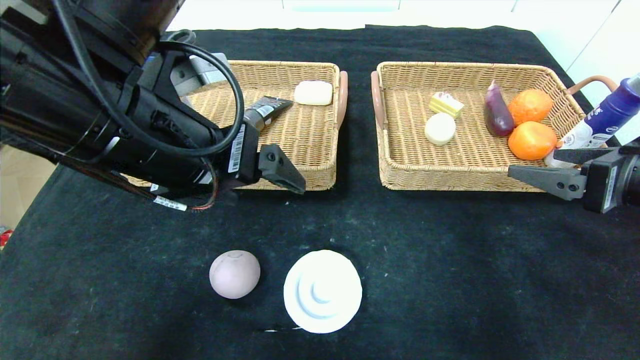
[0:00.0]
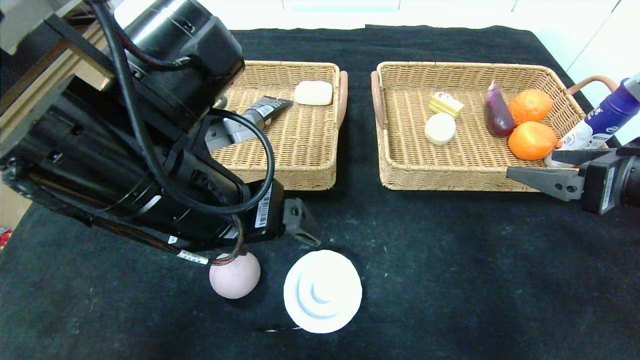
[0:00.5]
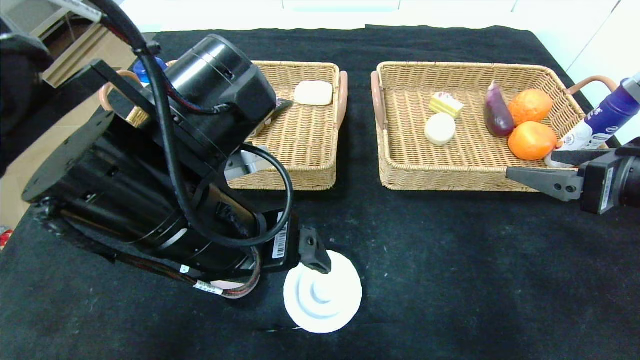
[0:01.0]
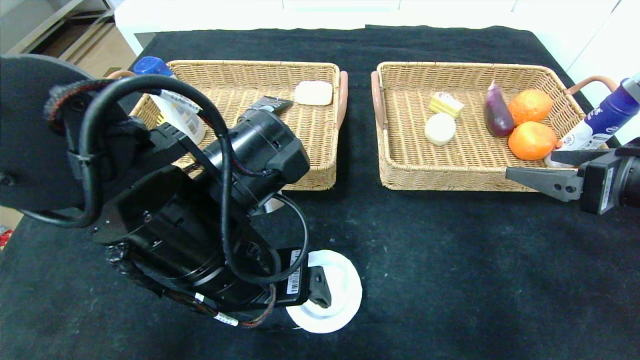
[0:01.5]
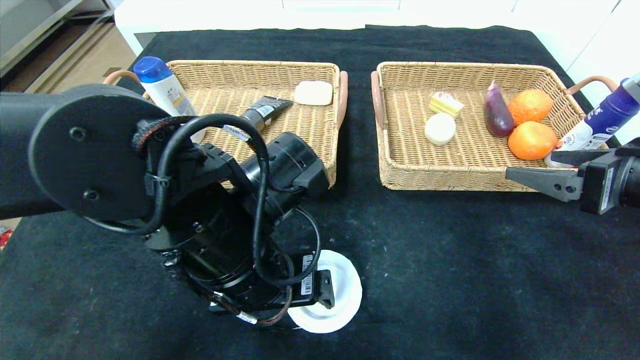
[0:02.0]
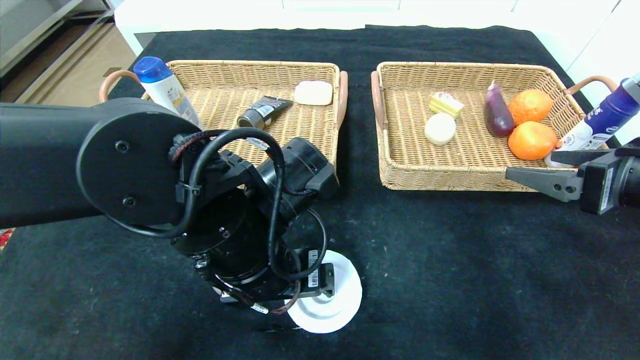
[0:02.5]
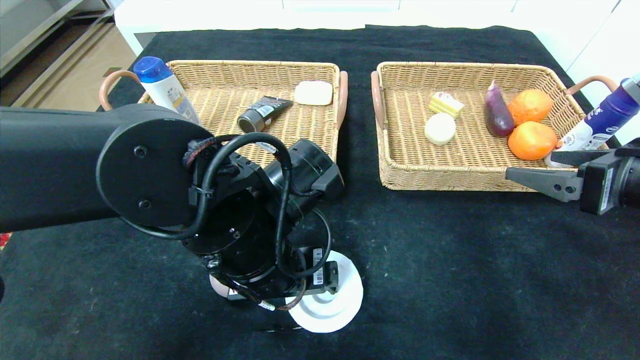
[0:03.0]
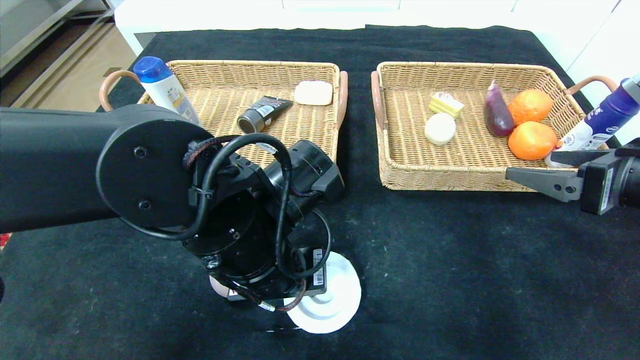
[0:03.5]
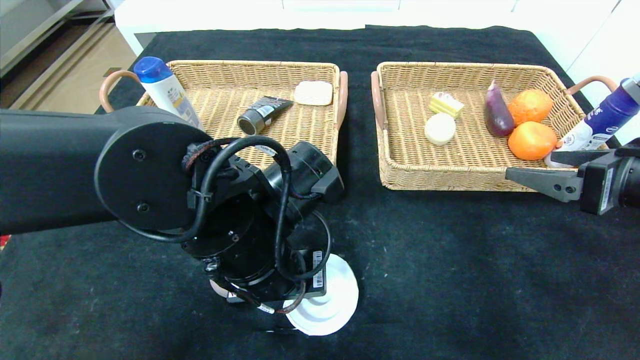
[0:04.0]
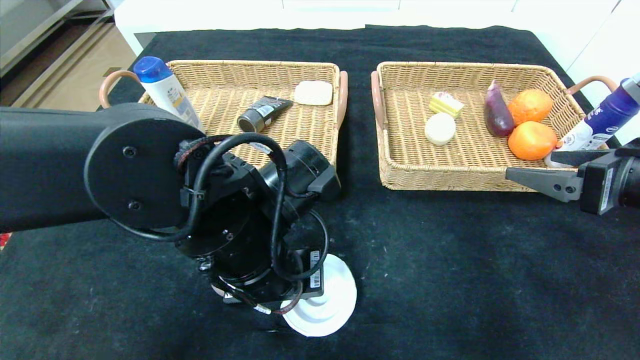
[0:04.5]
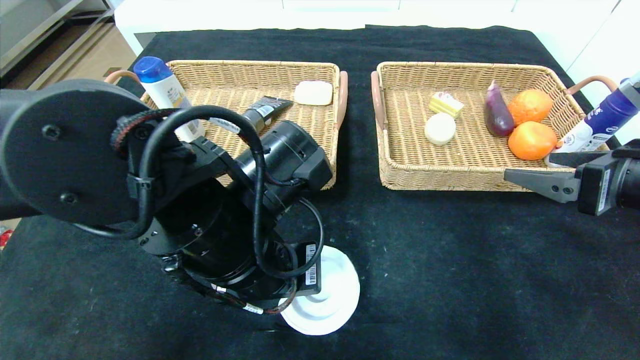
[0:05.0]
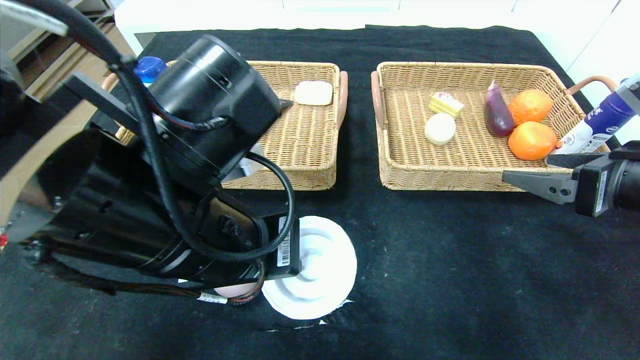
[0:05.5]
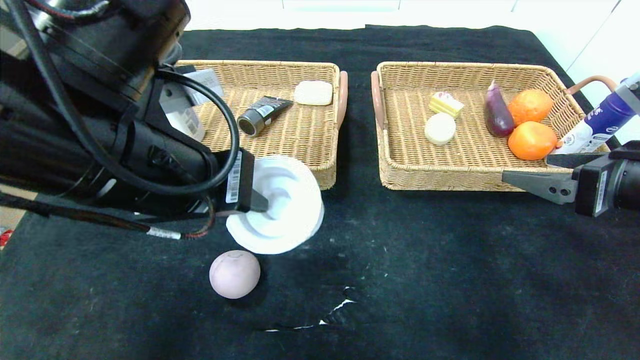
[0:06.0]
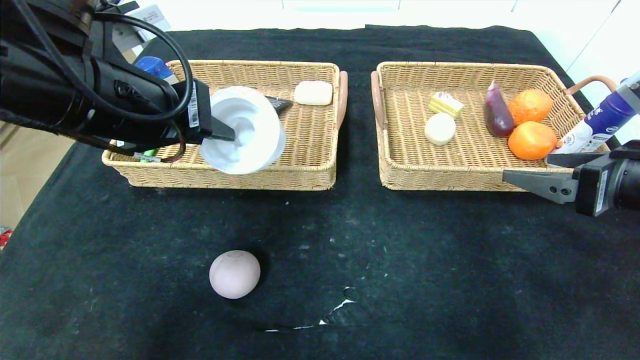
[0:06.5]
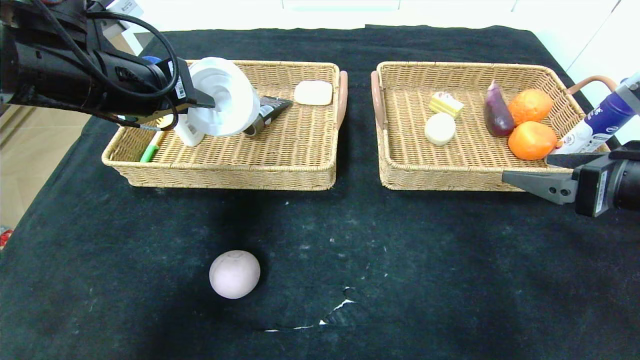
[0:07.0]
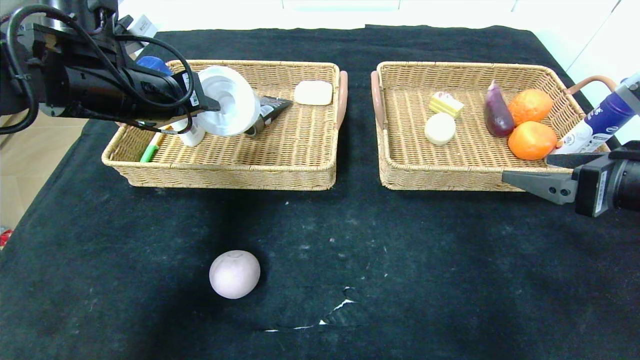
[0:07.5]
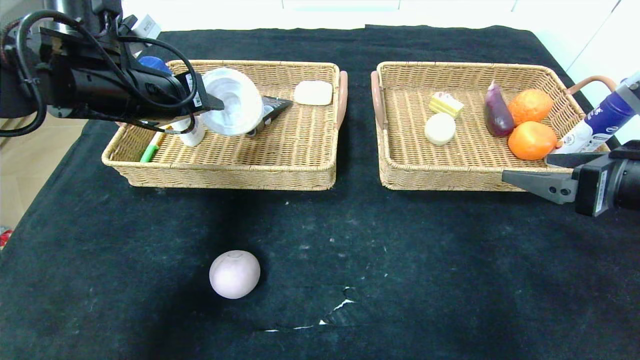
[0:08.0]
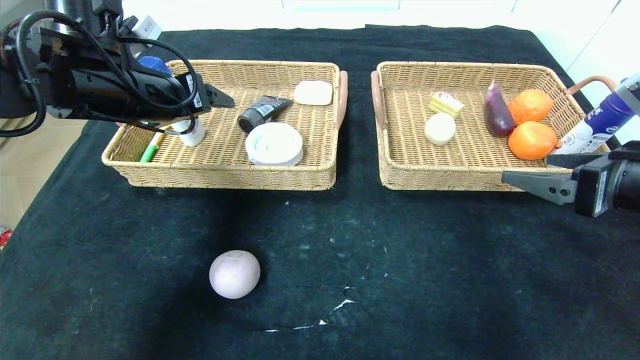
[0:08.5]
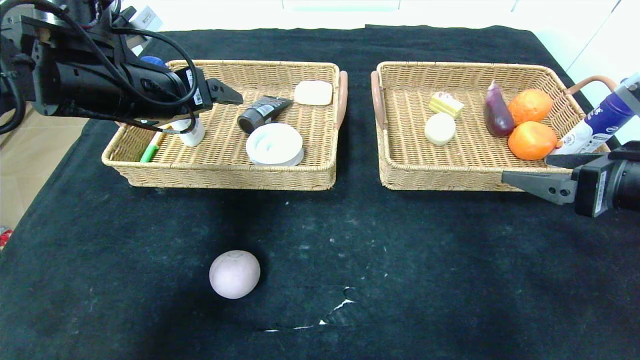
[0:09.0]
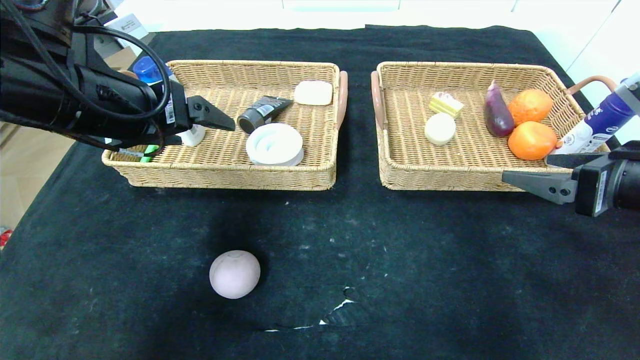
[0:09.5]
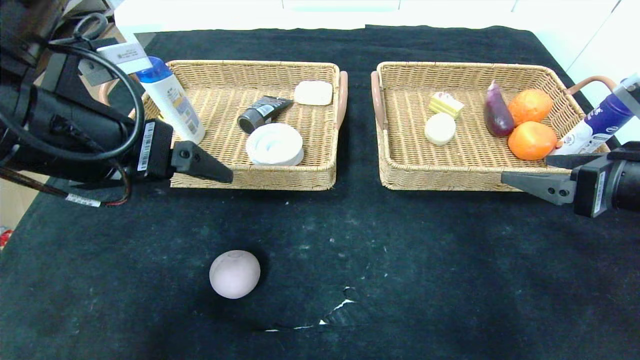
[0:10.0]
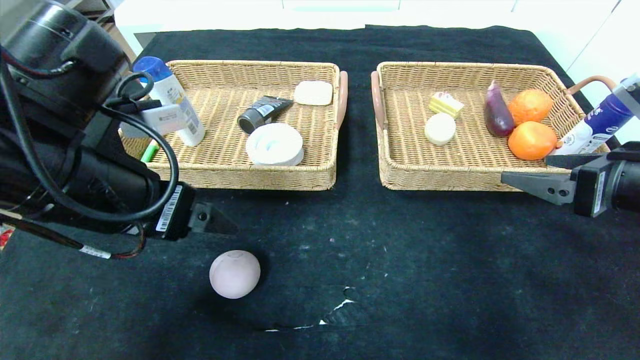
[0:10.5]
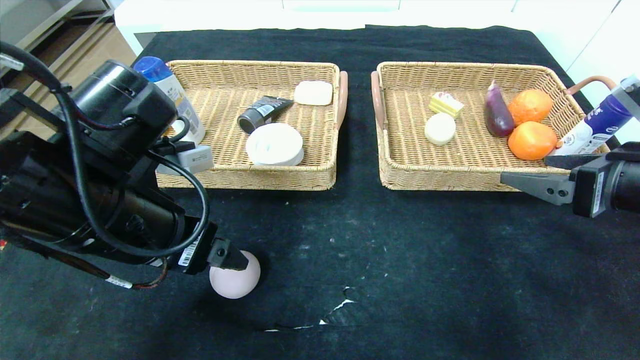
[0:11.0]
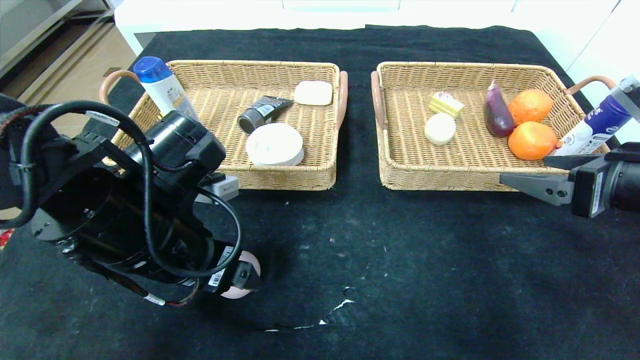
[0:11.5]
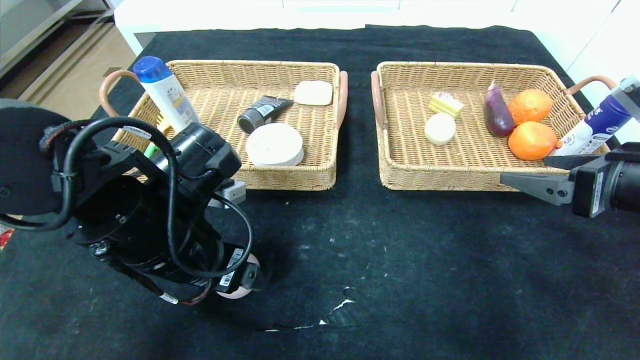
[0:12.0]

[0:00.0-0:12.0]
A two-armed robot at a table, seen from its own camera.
Step, 0:00.0 to 0:08.0: Grasp the tape and put it in the left basket.
0:00.0 to 0:02.0: The left gripper heads downward and to the right, covering some 10 cm.
0:02.0 to 0:04.0: The left gripper closes.
0:04.0 to 0:06.0: The left gripper is displaced upward and to the left by some 15 cm.
0:06.0 to 0:08.0: The left gripper shifts roughly 20 cm forward and to the left.
0:08.0 to 0:10.0: The left gripper moves backward, some 15 cm, and opens.
0:10.0 to 0:12.0: The left gripper goes roughly 10 cm downward and to the right.

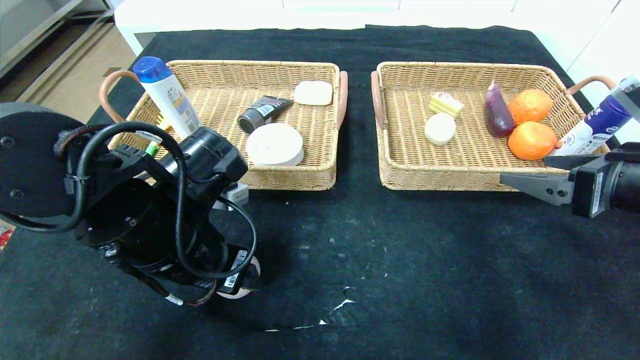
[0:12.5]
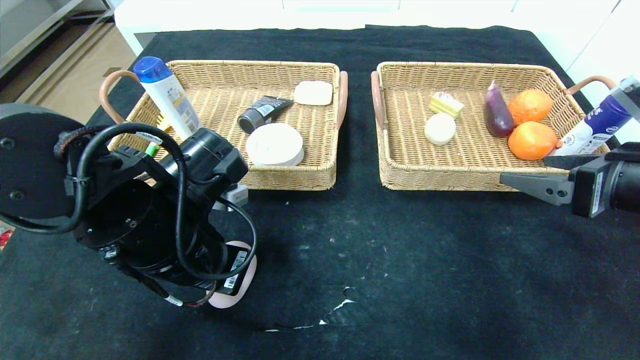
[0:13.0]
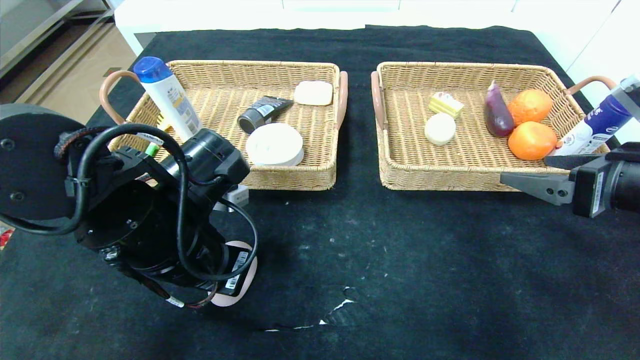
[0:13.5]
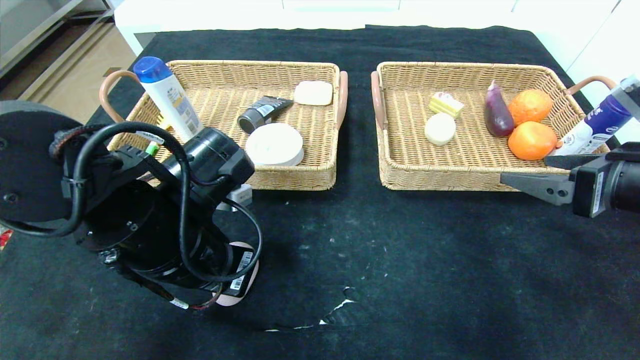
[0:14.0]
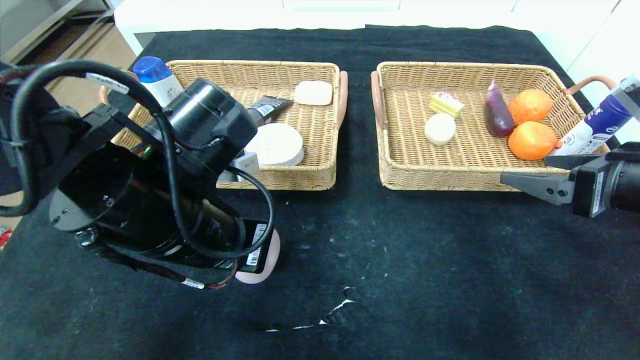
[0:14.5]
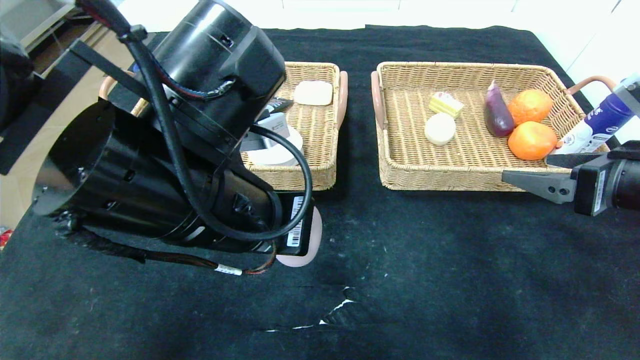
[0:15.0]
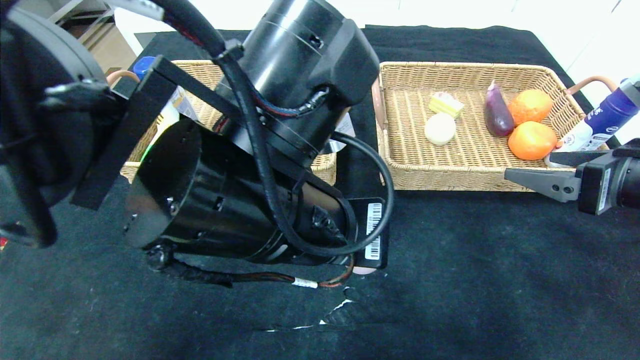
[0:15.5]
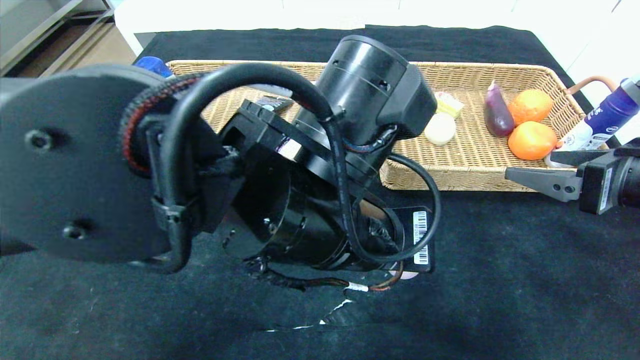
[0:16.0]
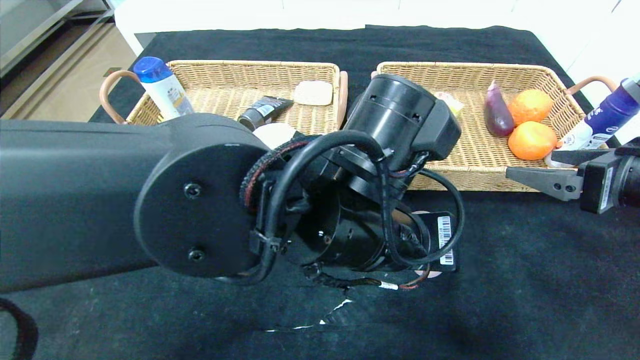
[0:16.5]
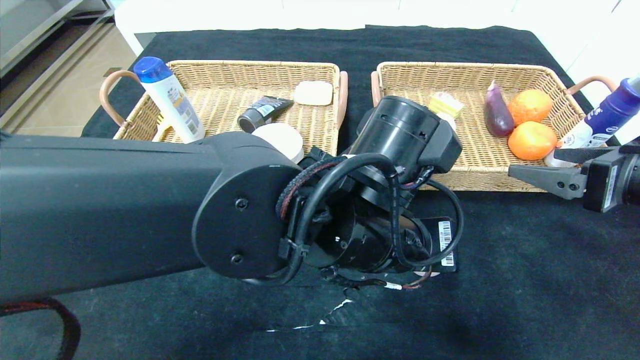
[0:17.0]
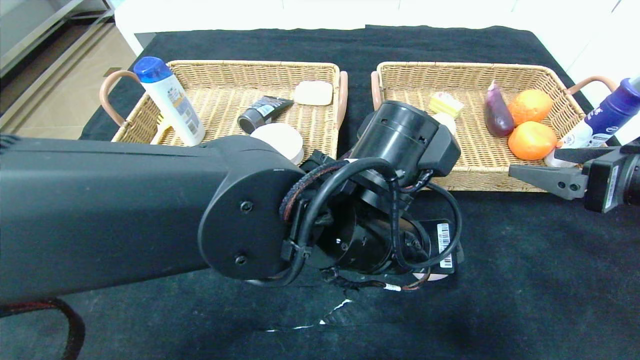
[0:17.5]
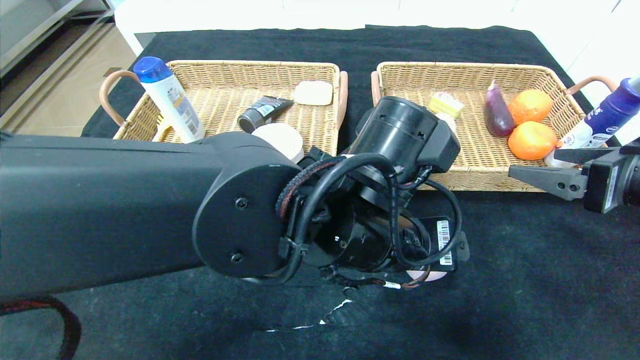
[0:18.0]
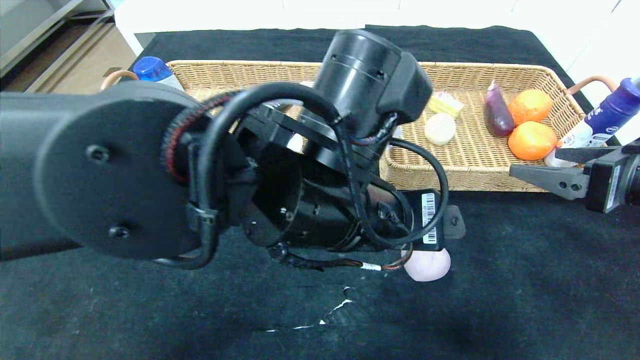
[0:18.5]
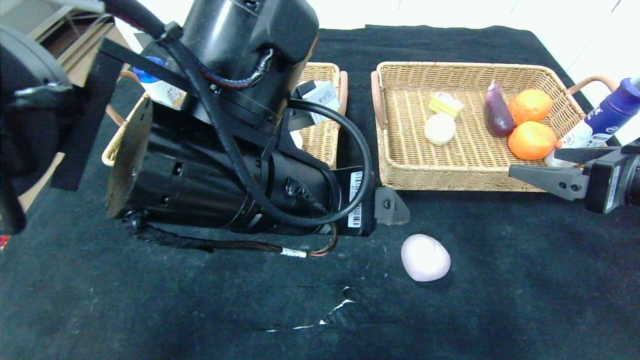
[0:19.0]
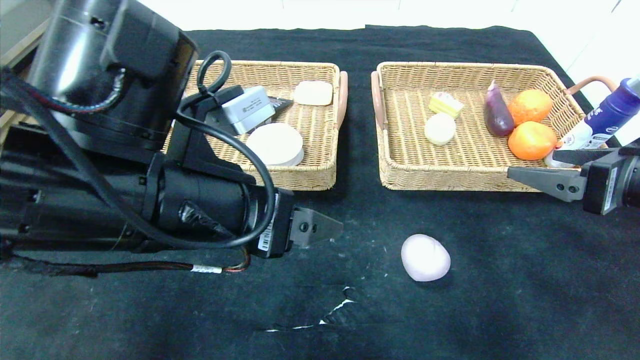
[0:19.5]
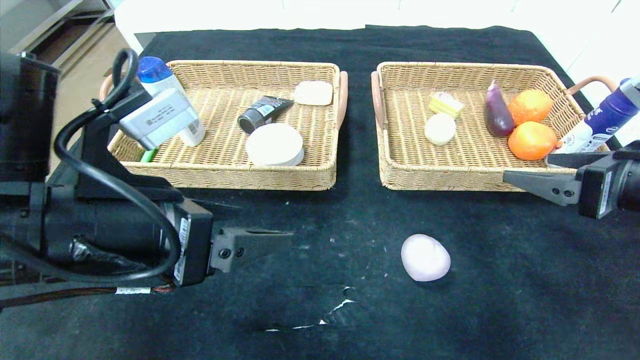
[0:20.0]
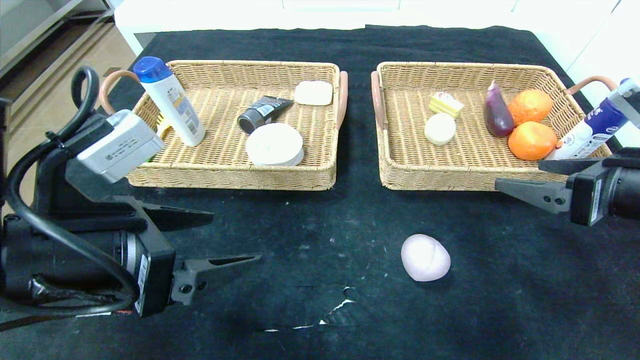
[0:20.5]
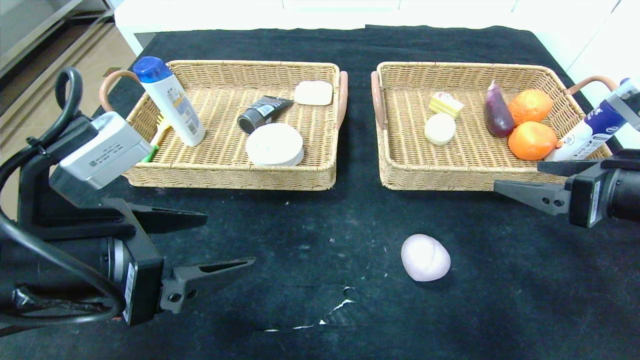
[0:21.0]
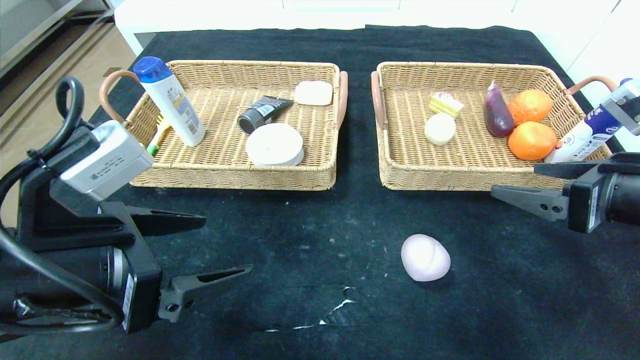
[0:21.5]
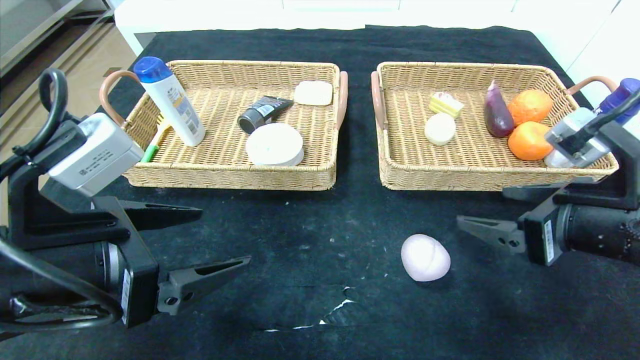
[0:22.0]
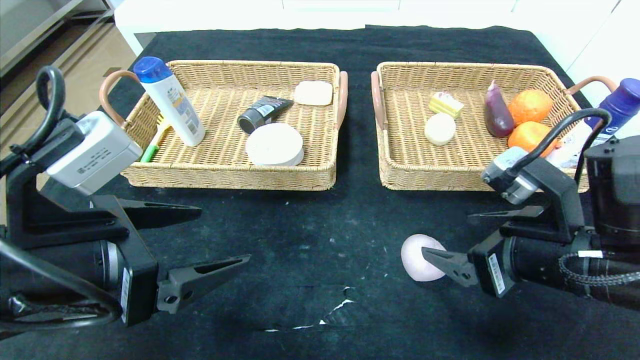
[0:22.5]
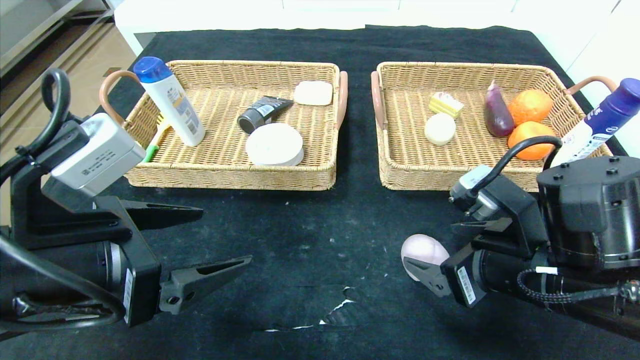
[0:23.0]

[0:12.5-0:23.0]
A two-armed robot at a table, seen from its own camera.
Step, 0:12.5 to 0:17.5: Place the peach in the center of the table.
0:12.5 to 0:14.5: The left gripper shifts by approximately 5 cm, and closes up.
0:14.5 to 0:16.5: The left gripper heads to the right, covering roughly 15 cm.
0:16.5 to 0:19.0: The left gripper is displaced to the left by roughly 10 cm, and opens up.
0:19.0 to 0:21.0: The left gripper goes roughly 15 cm to the left.
0:21.0 to 0:23.0: The right gripper is displaced to the left and downward by approximately 15 cm.
